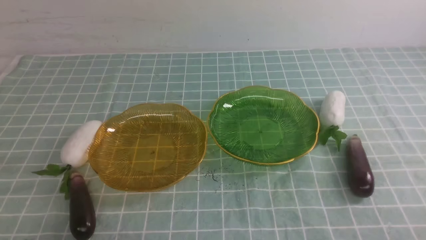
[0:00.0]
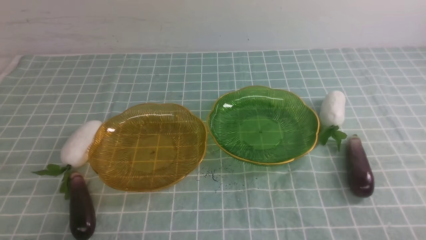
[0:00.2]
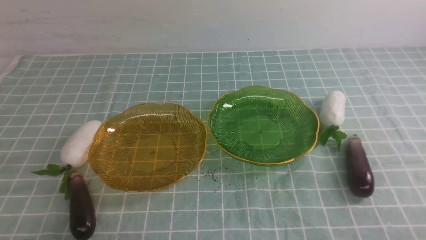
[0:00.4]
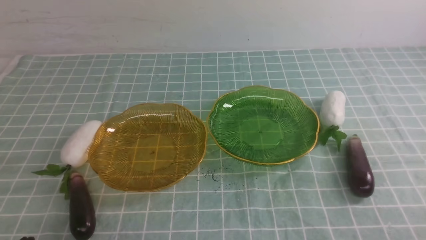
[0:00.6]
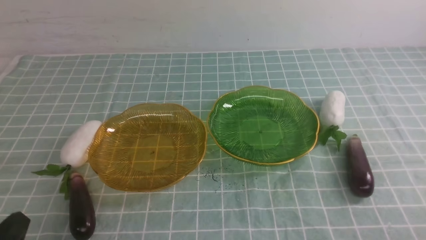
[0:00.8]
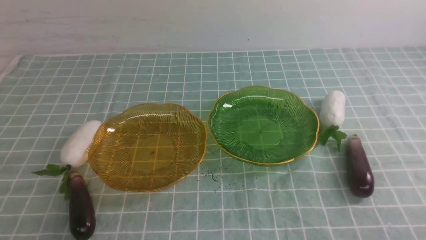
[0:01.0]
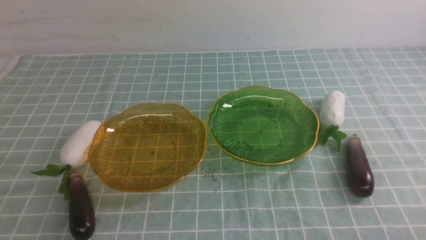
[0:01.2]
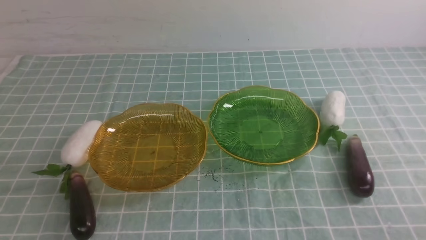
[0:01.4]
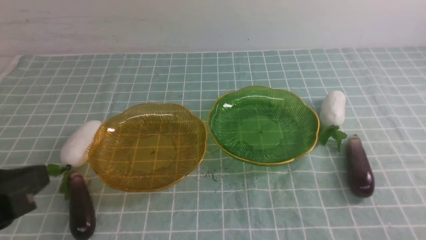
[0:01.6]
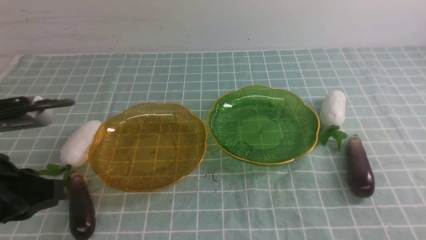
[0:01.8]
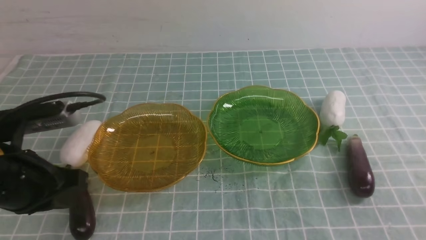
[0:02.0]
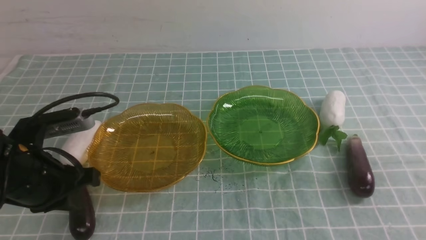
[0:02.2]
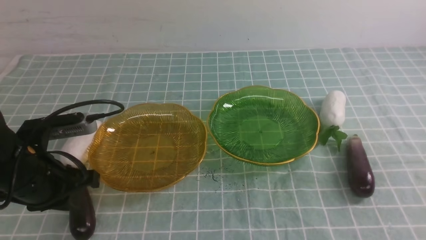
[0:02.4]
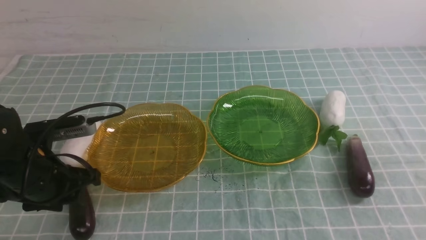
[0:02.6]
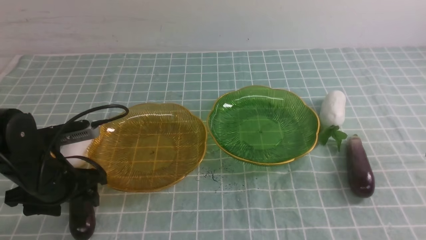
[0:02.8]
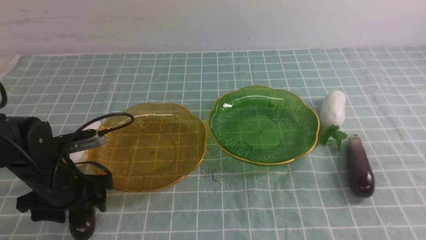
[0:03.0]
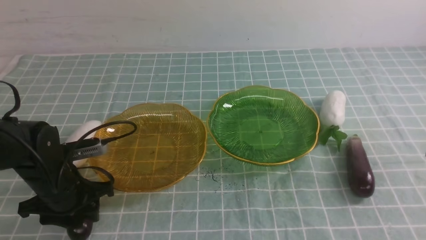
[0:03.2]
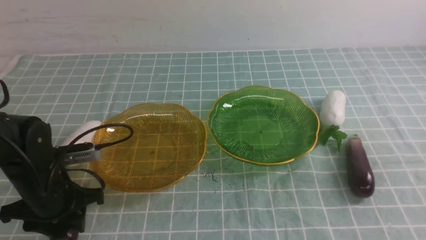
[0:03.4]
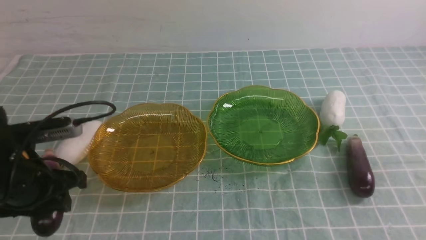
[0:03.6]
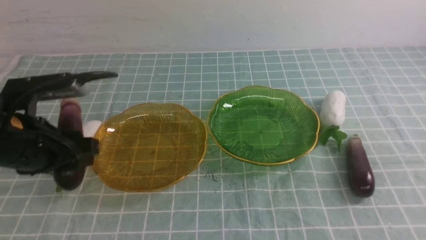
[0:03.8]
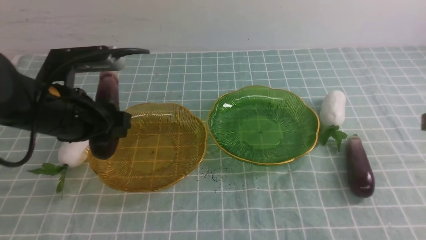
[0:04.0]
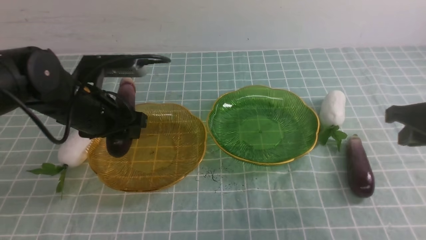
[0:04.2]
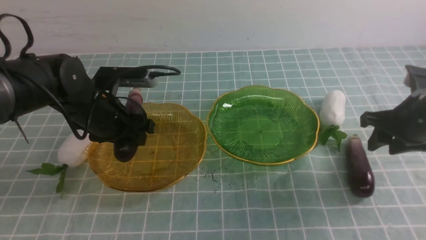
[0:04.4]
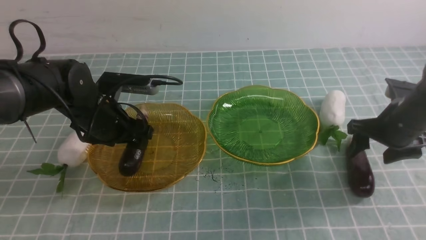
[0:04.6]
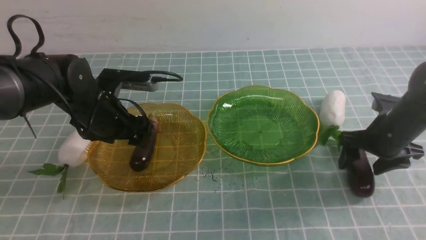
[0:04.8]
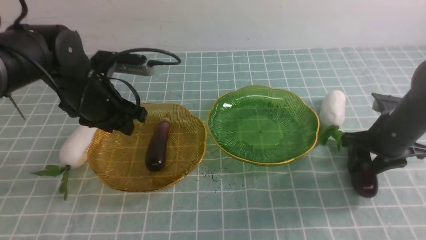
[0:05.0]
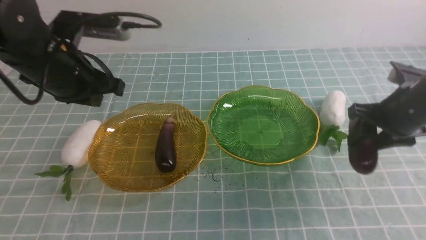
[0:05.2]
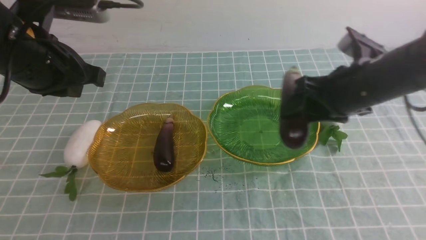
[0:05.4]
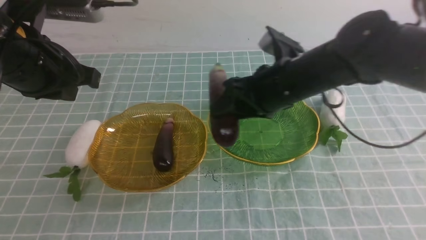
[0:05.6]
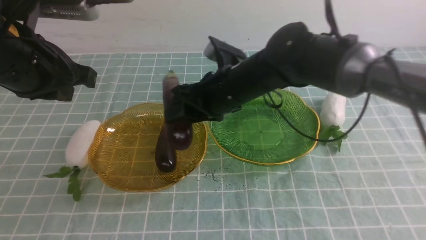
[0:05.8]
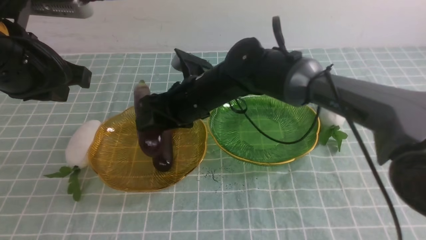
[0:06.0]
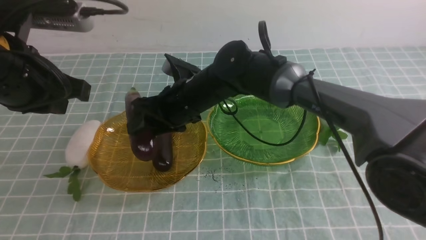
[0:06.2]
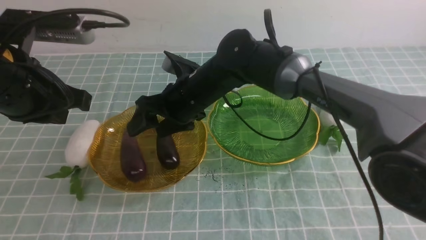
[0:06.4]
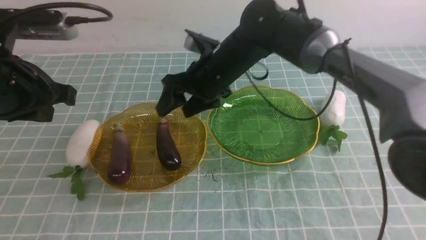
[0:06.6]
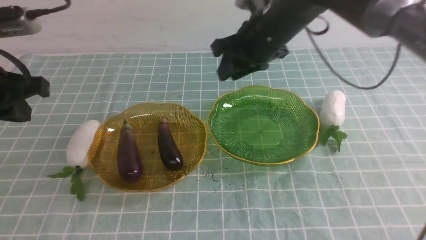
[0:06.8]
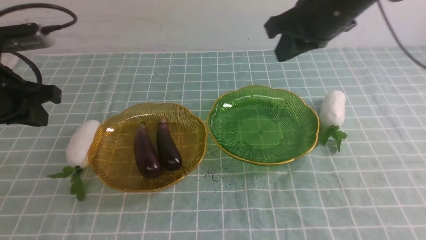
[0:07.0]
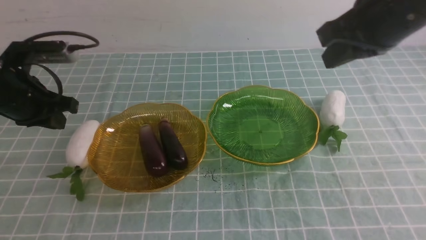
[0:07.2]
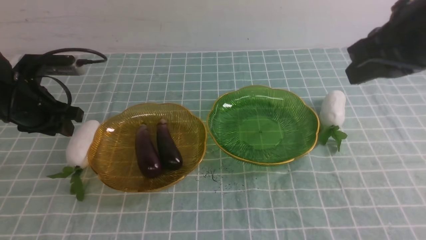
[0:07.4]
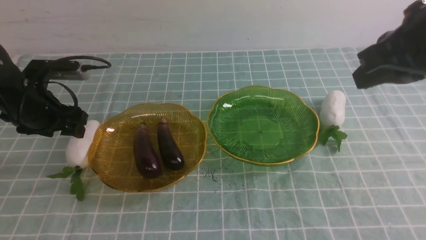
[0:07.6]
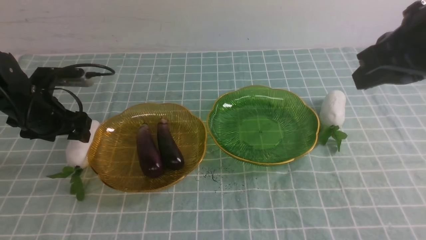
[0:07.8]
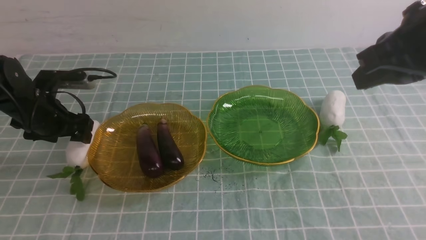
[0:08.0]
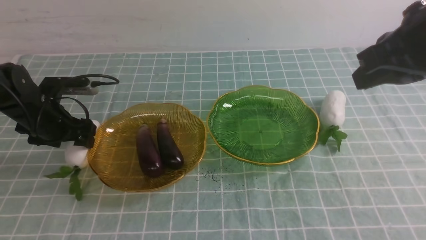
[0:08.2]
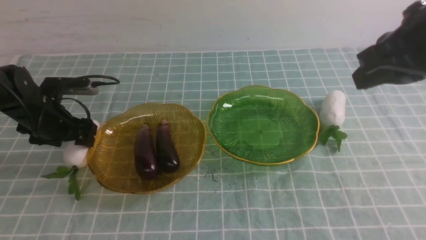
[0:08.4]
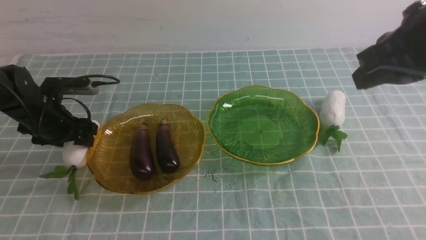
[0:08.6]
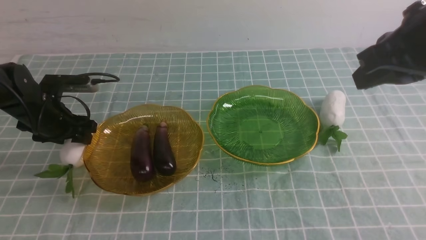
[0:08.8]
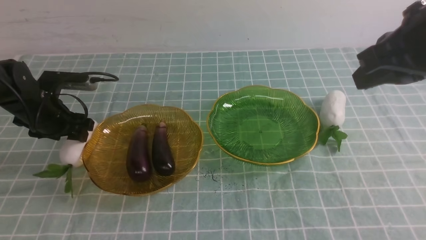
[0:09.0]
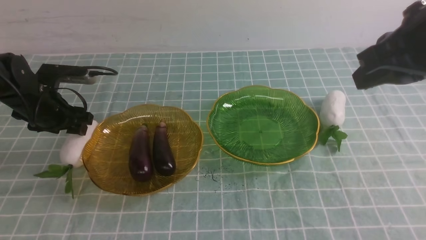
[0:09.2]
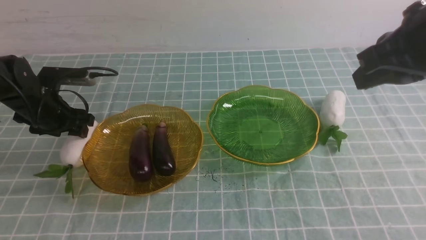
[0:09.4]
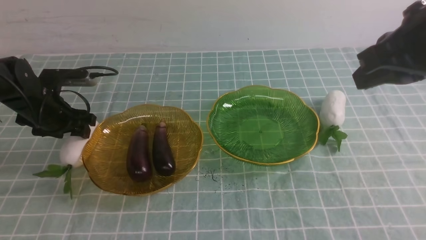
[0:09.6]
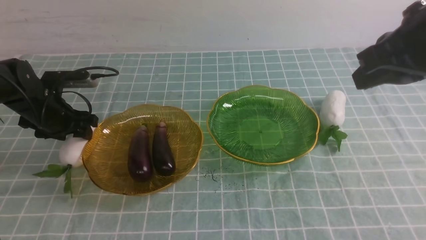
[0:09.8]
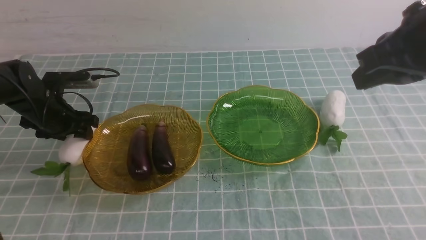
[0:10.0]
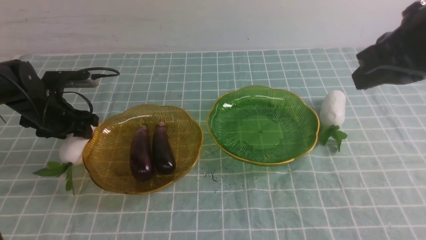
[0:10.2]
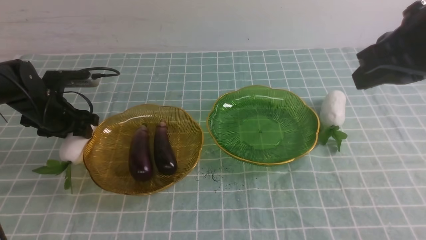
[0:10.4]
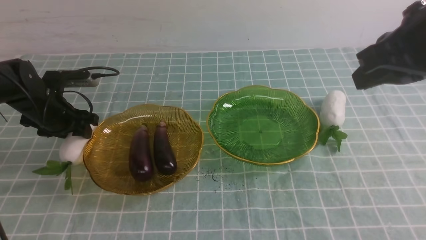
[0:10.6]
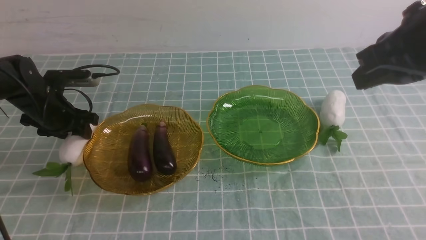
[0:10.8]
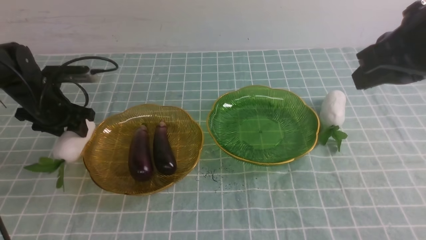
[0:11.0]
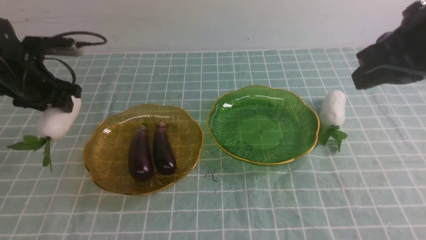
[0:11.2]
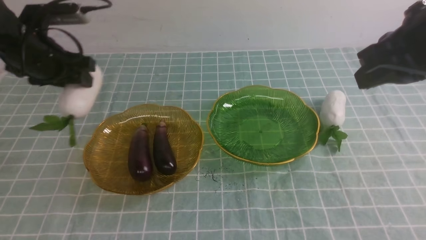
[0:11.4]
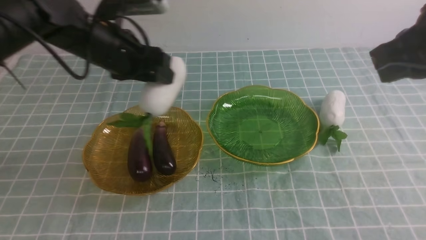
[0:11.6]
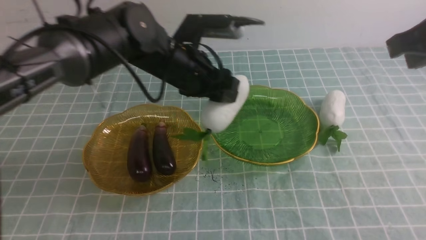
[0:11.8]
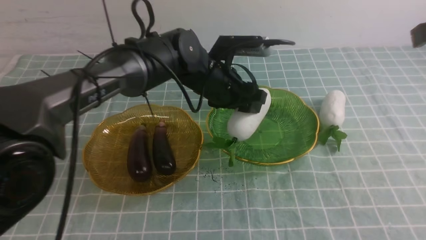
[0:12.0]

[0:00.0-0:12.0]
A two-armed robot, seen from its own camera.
Step, 0:00.0 to 0:04.6: use the left arm to grab an eggplant and put it into the left plate.
Step, 0:04.8 to 0:06.2: use the right arm to grab an eggplant and put it into the left plate.
0:00.0 to 0:01.6: The left gripper goes approximately 15 cm upward.
0:01.6 to 0:03.0: The left gripper shifts roughly 25 cm downward and forward, and opens up.
0:03.0 to 0:04.4: The left gripper heads forward, upward and to the right, covering roughly 10 cm. The right gripper travels forward and downward by approximately 25 cm, and opens.
0:04.4 to 0:06.0: The right gripper heads to the left, covering approximately 30 cm. The left gripper is displaced upward and backward by approximately 15 cm, and closes.
0:06.0 to 0:07.6: The right gripper moves to the right, upward and backward, some 30 cm, and closes up. Meanwhile the left gripper heads downward, forward and to the left, covering some 20 cm, and opens its fingers.
0:07.6 to 0:09.0: The grippers move only a little.
0:09.0 to 0:10.4: The grippers stay close to where they were, moving slightly.
0:10.4 to 0:12.0: The right gripper is displaced to the right by approximately 5 cm. The left gripper is displaced to the right by roughly 30 cm.

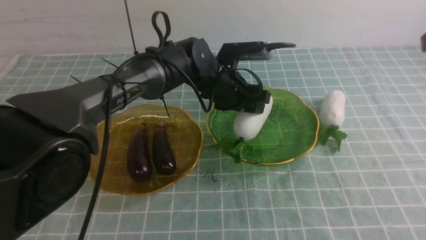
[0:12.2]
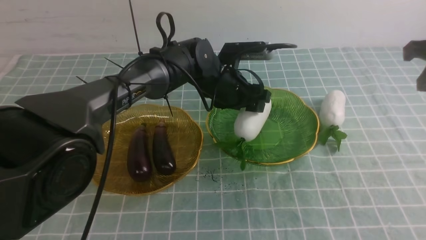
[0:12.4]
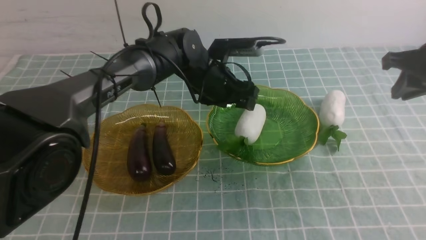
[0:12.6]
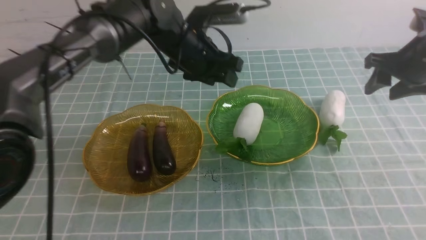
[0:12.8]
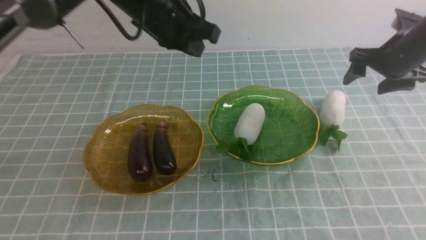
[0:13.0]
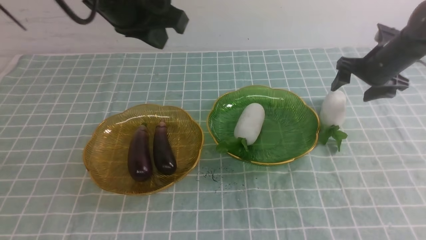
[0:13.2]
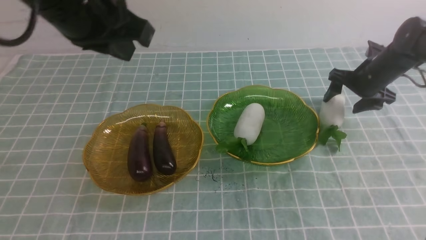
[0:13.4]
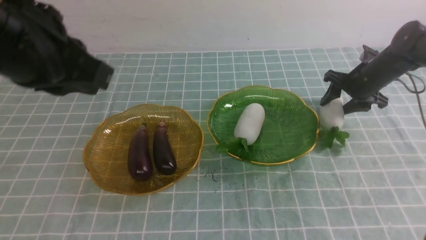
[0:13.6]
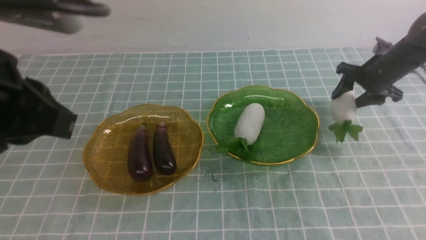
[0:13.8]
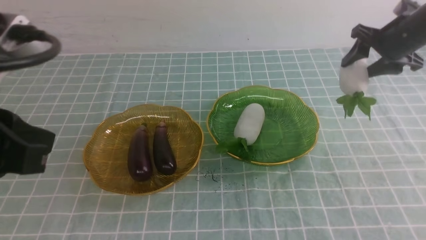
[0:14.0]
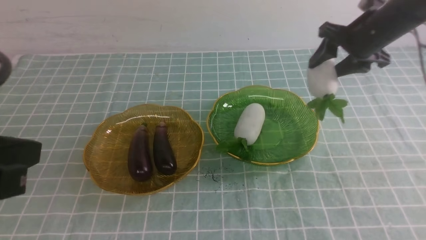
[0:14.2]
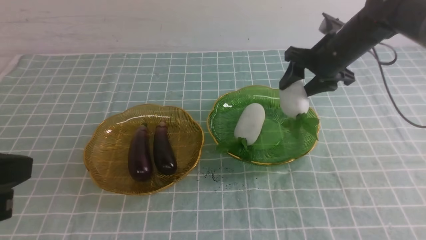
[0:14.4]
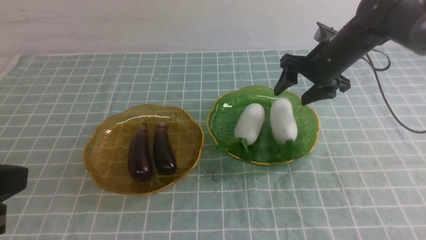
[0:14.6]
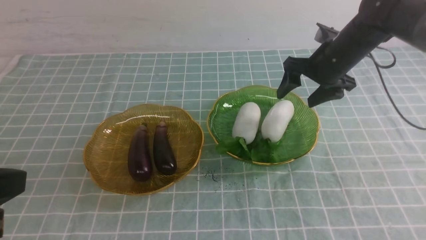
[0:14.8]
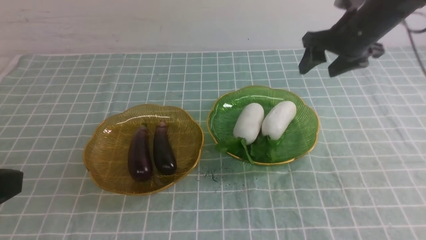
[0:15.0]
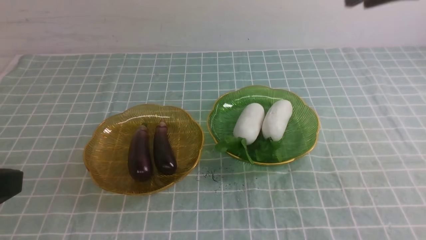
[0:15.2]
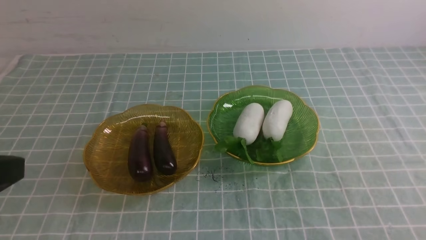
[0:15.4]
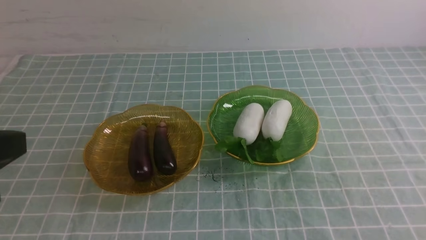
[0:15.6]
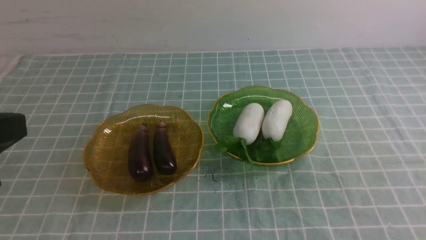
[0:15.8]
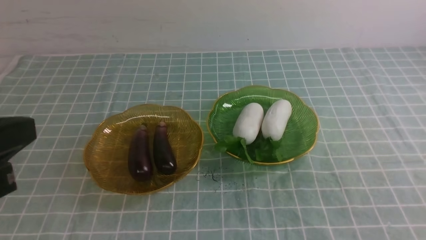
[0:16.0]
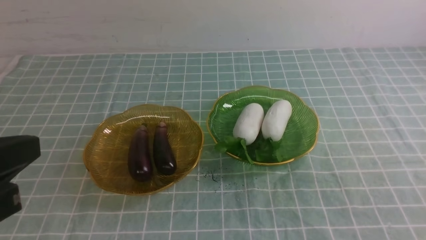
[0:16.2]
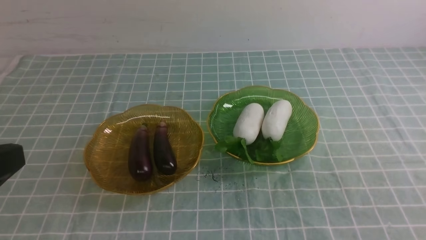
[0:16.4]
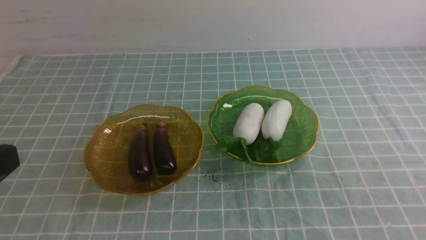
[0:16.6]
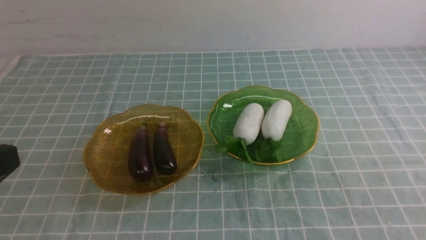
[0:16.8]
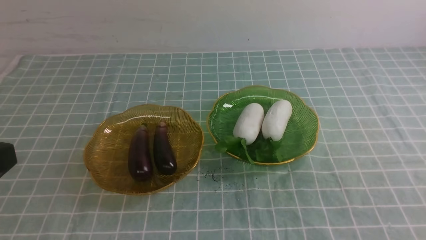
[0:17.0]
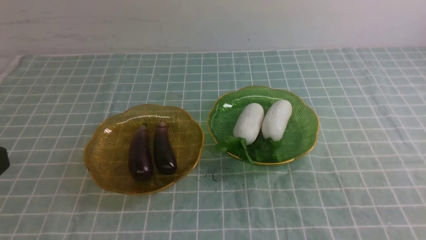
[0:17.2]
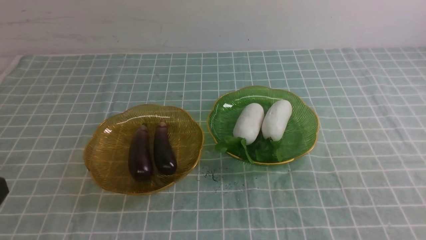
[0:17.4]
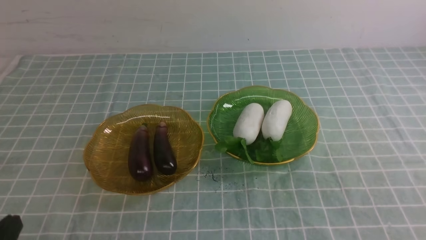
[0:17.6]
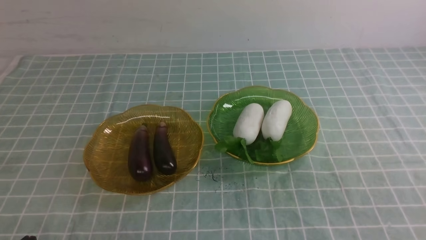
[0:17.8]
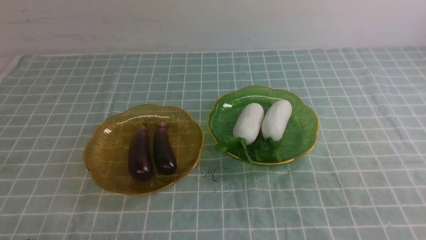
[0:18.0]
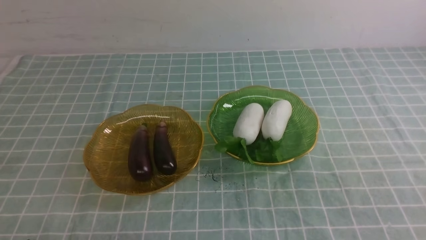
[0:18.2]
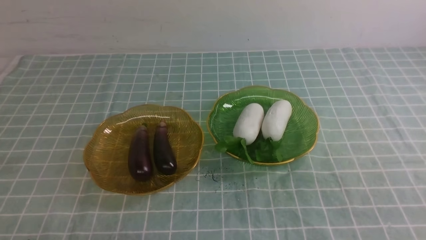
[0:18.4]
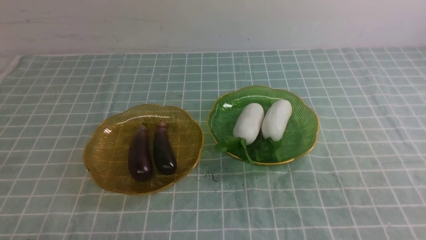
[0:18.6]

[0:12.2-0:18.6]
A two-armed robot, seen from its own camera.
Step, 0:12.8 to 0:14.6: use the right arm to grab a radish and put it into the right plate.
0:12.2 to 0:13.8: The right gripper shifts about 20 cm forward and downward, and opens up. Meanwhile the left gripper travels backward, to the left and upward by roughly 40 cm, and closes.
0:13.8 to 0:15.4: The left gripper travels backward by approximately 5 cm. The right gripper is displaced backward and upward by some 40 cm, and closes its fingers.
